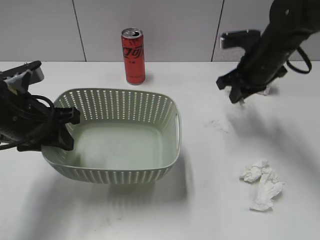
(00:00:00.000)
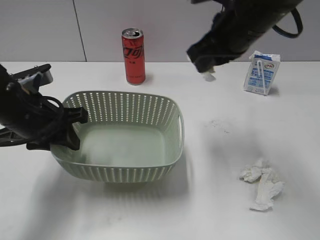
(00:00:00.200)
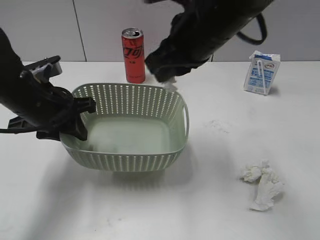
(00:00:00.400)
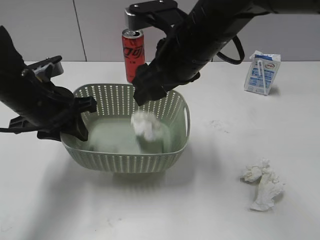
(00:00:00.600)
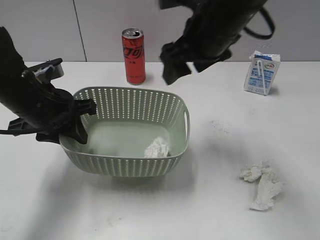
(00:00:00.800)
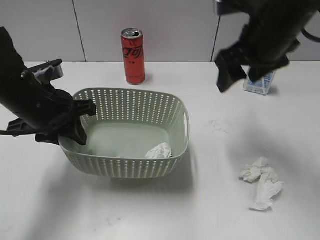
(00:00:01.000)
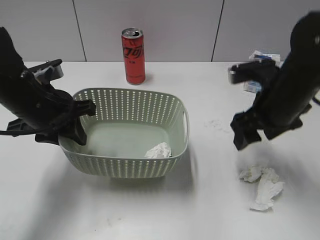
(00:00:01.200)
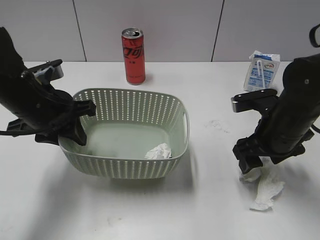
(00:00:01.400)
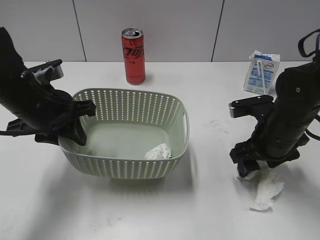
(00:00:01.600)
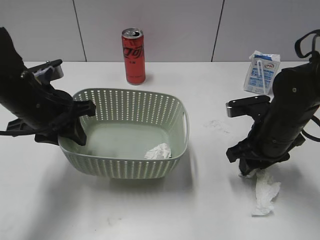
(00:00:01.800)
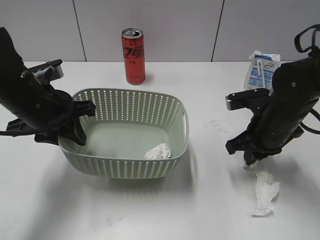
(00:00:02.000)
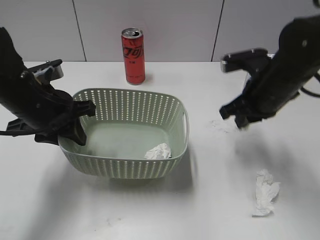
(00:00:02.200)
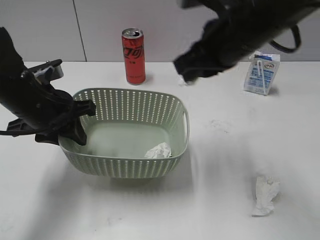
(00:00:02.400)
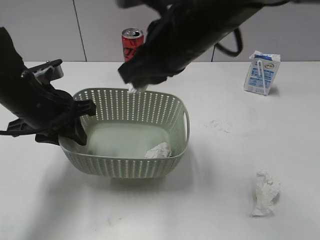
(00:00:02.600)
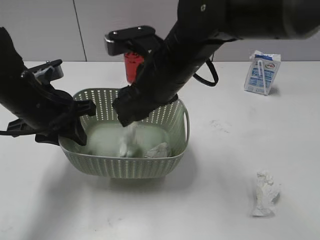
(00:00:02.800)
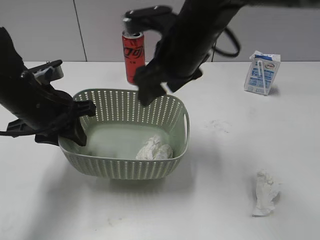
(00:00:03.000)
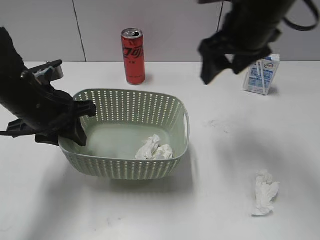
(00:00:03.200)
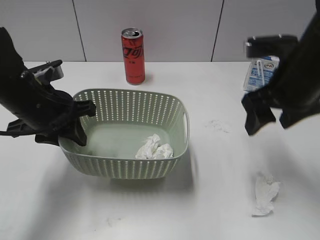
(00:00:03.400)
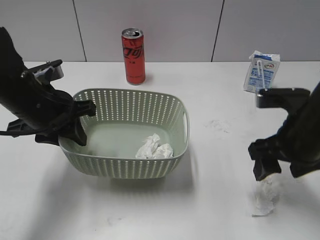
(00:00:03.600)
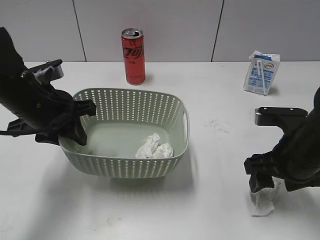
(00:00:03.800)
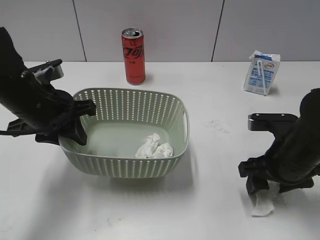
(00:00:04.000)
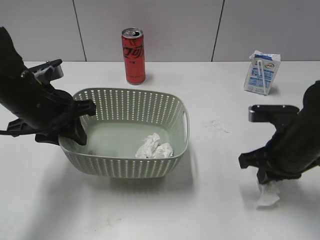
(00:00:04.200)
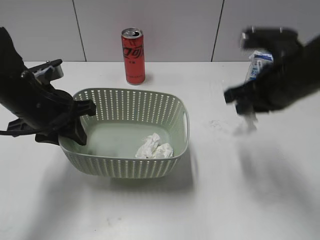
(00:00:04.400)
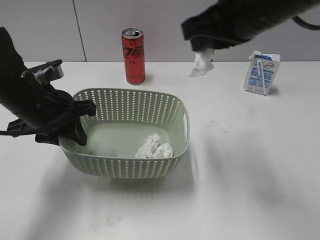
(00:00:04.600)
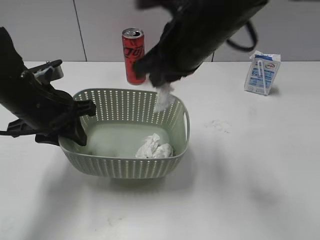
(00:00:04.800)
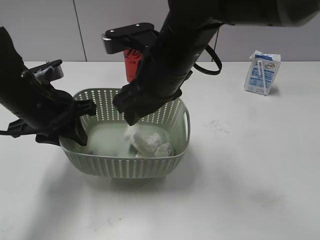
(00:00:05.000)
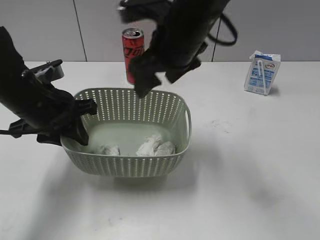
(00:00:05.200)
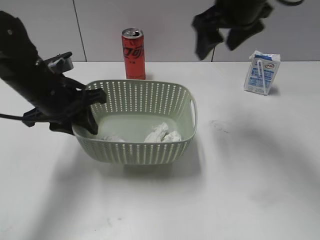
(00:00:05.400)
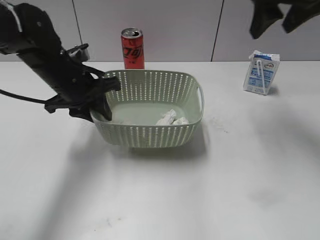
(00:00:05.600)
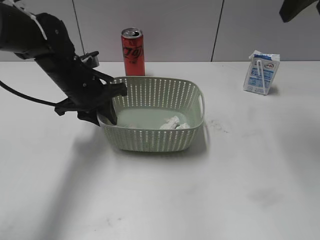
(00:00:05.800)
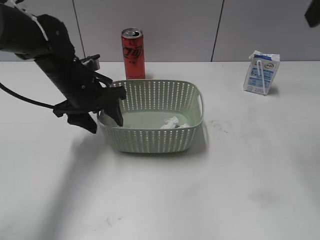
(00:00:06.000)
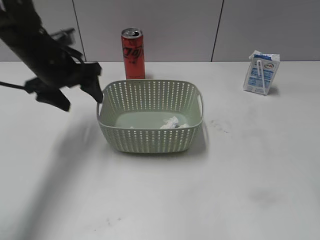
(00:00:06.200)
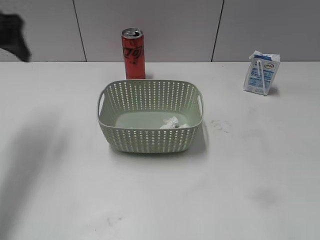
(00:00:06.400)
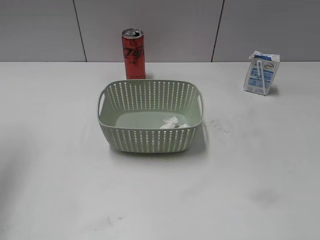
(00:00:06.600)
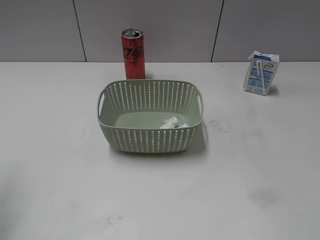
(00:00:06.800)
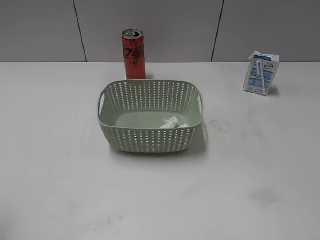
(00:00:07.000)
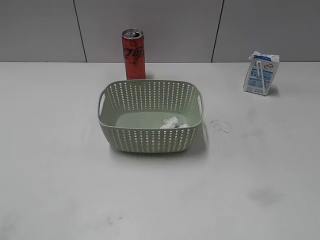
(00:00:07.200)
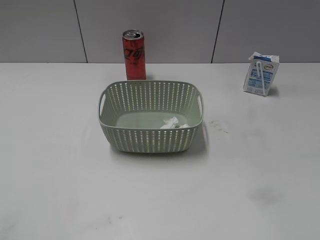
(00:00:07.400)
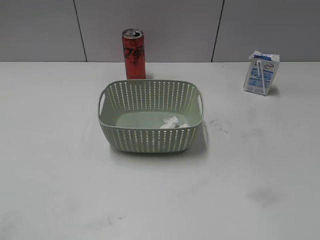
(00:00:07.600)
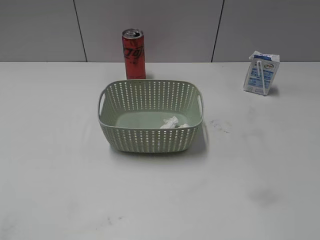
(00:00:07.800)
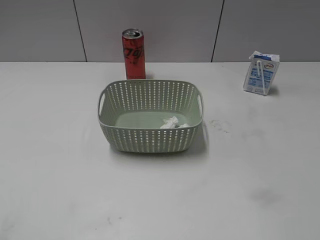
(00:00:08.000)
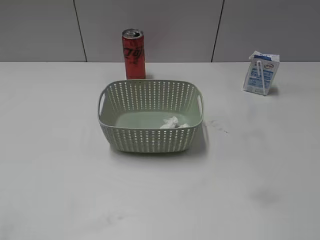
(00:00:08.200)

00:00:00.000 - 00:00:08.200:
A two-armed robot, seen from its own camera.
Step, 00:00:00.000 - 00:00:00.800: Place the waste paper in the basket with right gripper.
Step, 00:00:01.000 - 00:00:02.000: Grasp the waste paper with right gripper.
Step, 00:00:02.200 - 00:00:02.800: Place the waste paper in the basket with right gripper.
Step, 00:00:03.000 - 00:00:04.400: Grasp the waste paper with right gripper.
Step, 00:00:04.600 - 00:00:05.200: Place the waste paper in the basket with right gripper.
Step, 00:00:05.400 - 00:00:06.000: Place the basket on the table with left gripper.
00:00:00.000 - 00:00:01.600: The right gripper heads backward and downward, covering about 15 cm, and opens up.
00:00:01.600 - 00:00:03.200: The right gripper goes approximately 15 cm upward, and closes, then reopens.
00:00:03.200 - 00:00:05.000: The right gripper goes up and down, about 20 cm each way, reversing 2 times, and closes, then opens again.
00:00:05.000 - 00:00:06.600: The left gripper heads upward and to the left, covering approximately 25 cm, and opens up, while the right gripper is displaced to the right and backward by approximately 35 cm.
00:00:06.600 - 00:00:08.200: The left gripper moves backward, some 25 cm.

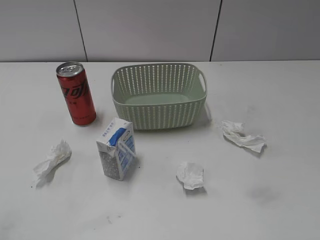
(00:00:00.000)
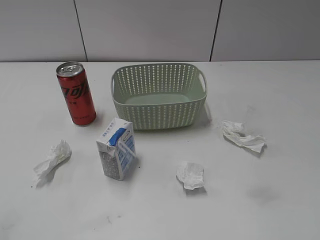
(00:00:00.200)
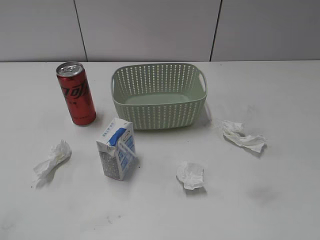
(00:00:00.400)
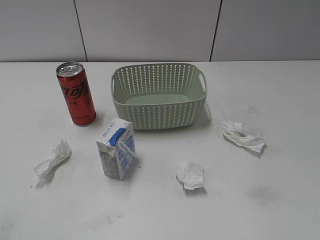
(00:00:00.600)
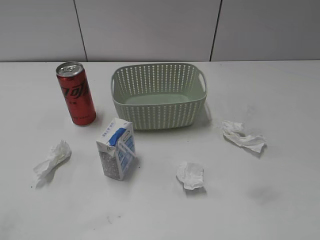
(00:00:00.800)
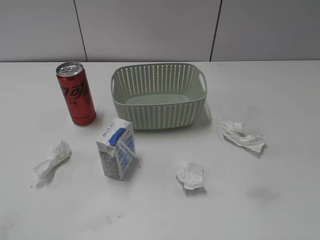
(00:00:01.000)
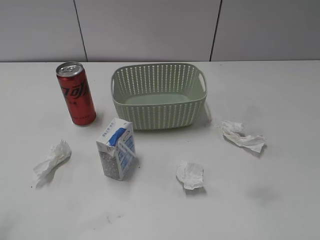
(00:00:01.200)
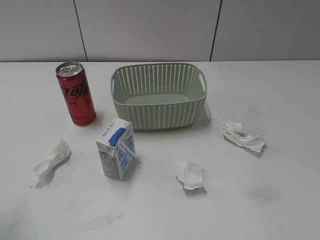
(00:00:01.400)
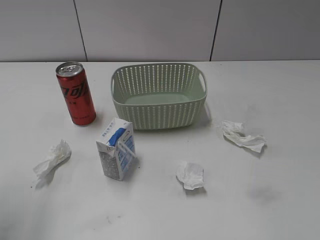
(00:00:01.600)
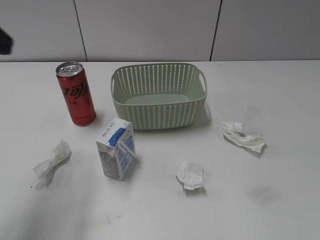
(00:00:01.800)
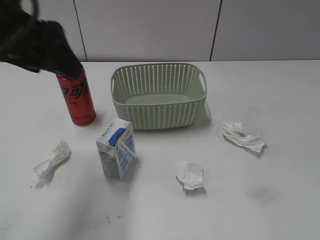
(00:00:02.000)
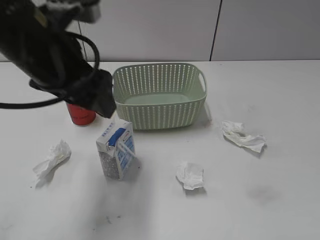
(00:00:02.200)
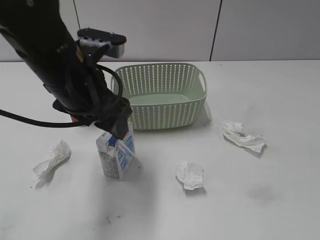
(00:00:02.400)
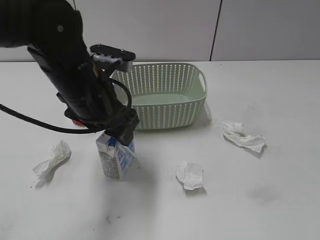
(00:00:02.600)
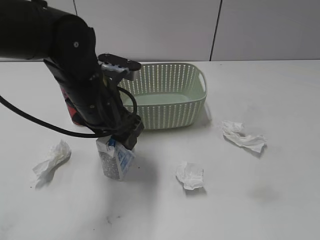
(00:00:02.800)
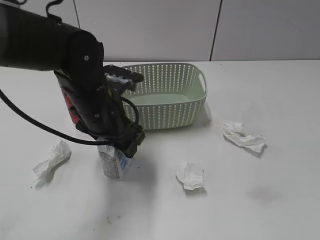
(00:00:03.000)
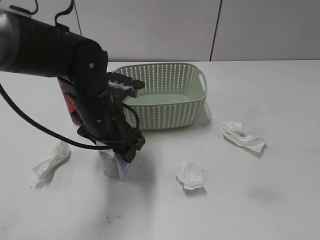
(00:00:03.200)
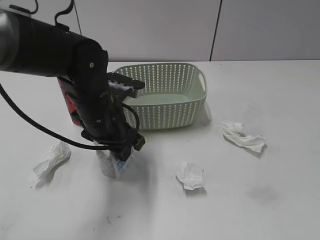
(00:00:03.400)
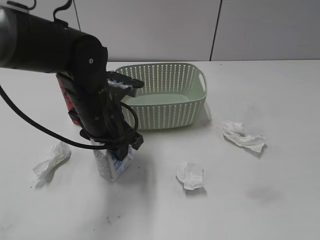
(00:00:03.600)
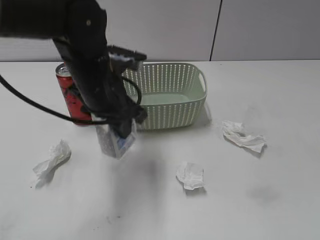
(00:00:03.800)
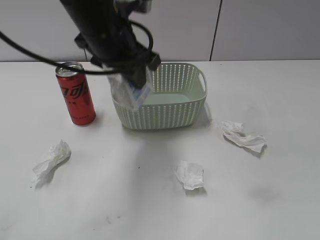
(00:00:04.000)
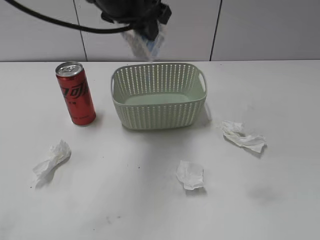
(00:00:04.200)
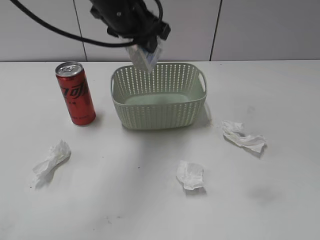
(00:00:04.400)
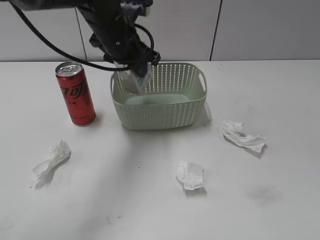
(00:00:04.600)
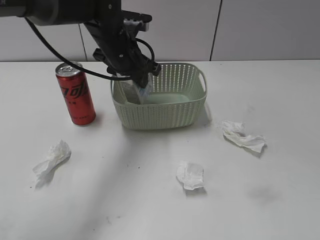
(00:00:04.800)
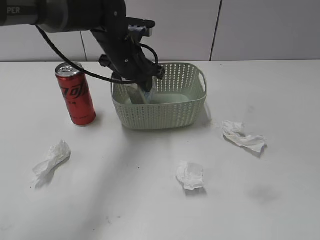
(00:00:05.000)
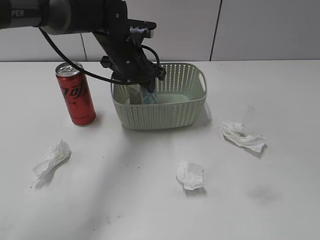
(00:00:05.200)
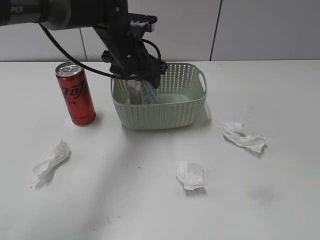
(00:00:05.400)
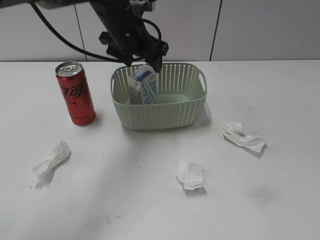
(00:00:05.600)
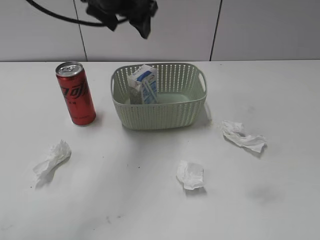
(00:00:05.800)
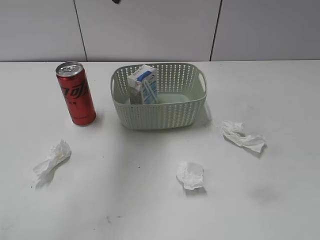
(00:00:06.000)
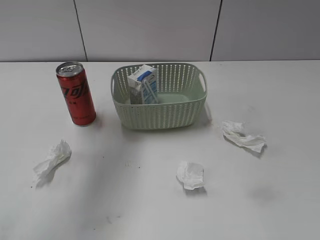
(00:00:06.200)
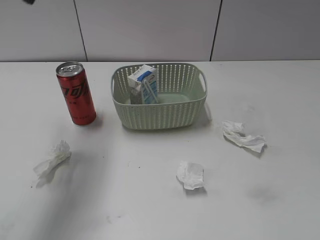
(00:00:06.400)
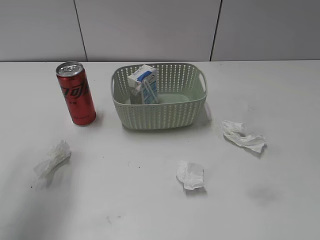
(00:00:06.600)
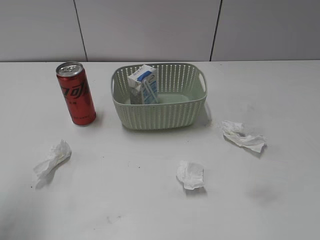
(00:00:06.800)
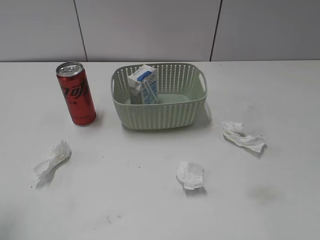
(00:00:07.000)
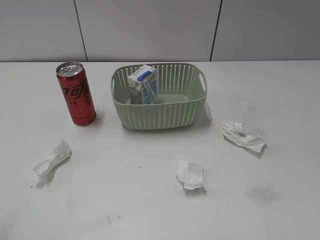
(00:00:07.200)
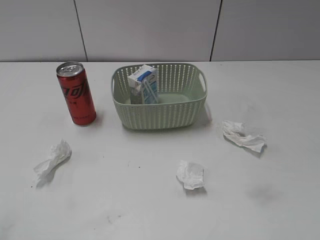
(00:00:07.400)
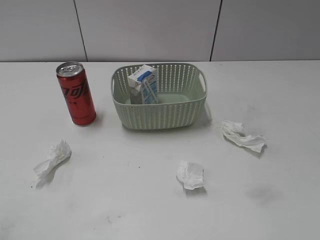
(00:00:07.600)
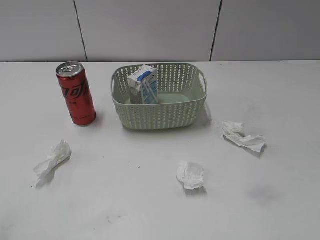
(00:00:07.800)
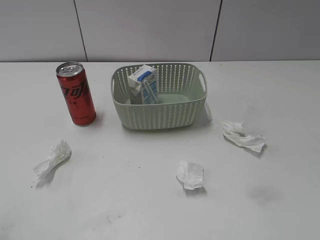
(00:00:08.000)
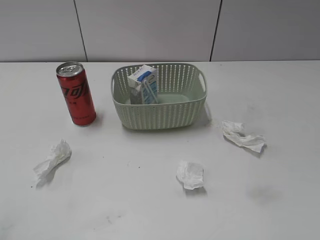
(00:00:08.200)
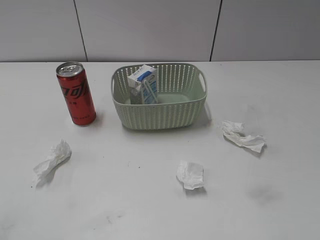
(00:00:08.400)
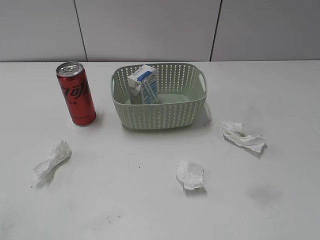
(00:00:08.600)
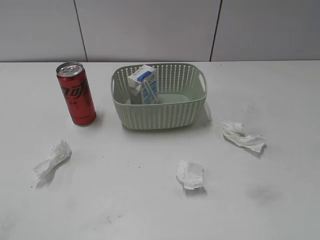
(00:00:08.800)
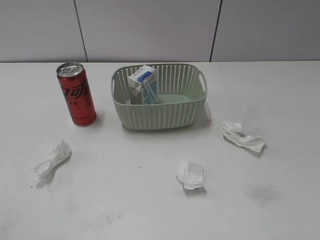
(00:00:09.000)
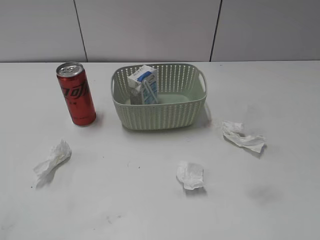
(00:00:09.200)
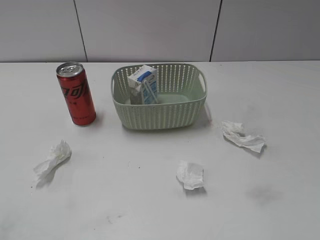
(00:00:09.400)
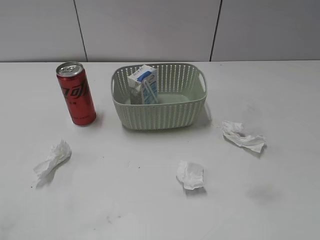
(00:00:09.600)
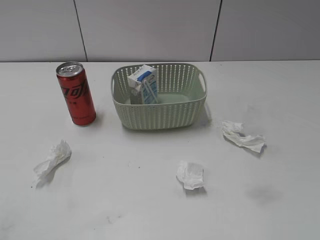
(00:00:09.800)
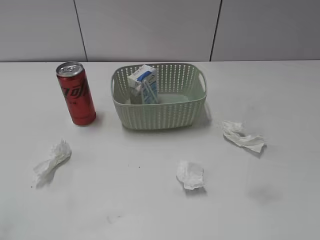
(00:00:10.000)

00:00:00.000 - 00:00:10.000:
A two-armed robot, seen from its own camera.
Step, 00:00:01.800 - 00:00:03.400: Grasp the milk with left gripper.
Step, 00:00:03.600 - 00:00:05.600: Place the milk in the basket with left gripper.
00:00:01.400 - 00:00:02.800: The left gripper goes some 30 cm to the right, forward and downward.
00:00:02.800 - 00:00:04.200: The left gripper moves upward and forward, about 15 cm, and closes its fingers.
00:00:04.200 - 00:00:05.800: The left gripper travels forward by roughly 5 cm, goes downward and returns, some 15 cm each way, and opens up.
00:00:05.800 - 00:00:07.200: The left gripper heads backward and to the left, covering about 40 cm.
